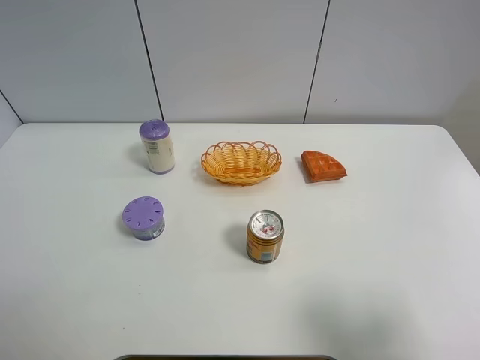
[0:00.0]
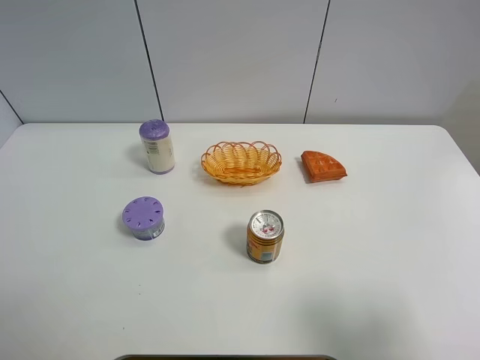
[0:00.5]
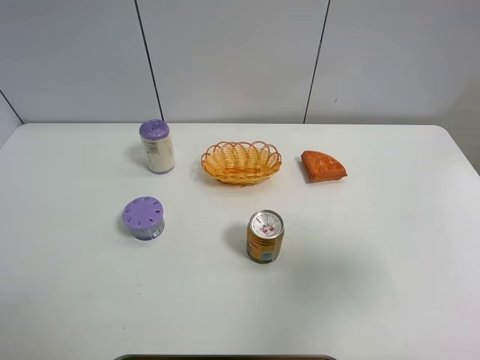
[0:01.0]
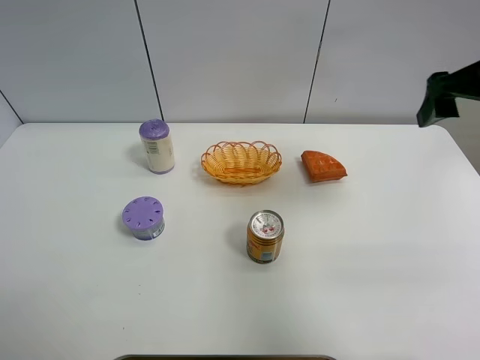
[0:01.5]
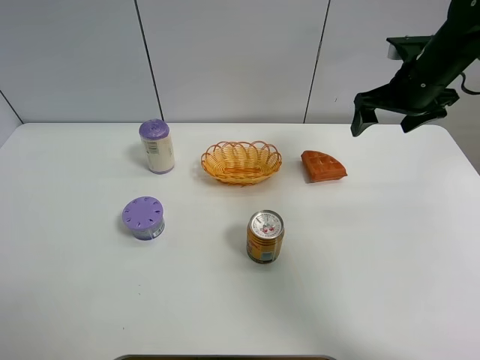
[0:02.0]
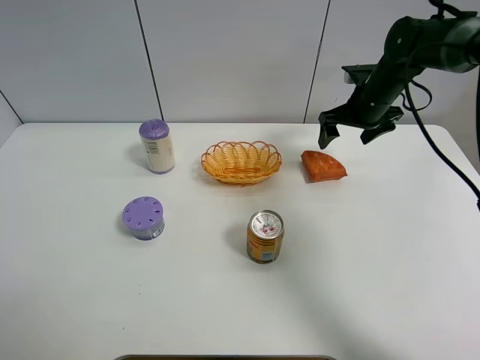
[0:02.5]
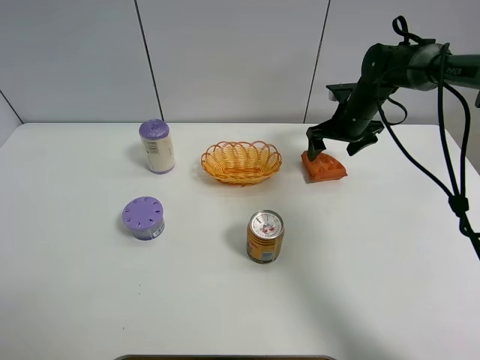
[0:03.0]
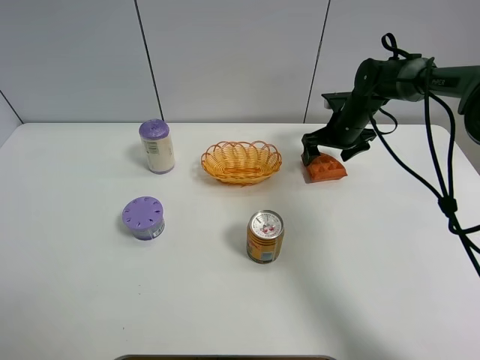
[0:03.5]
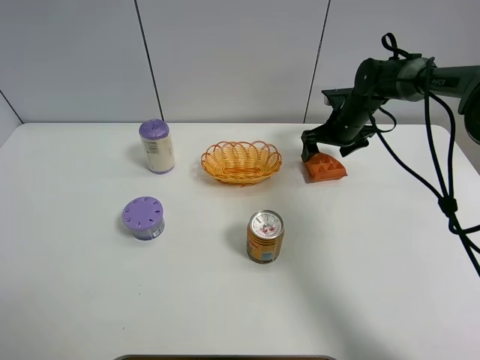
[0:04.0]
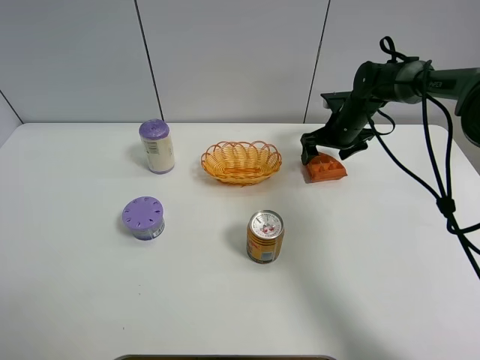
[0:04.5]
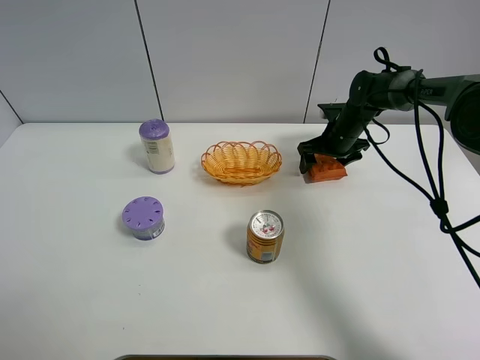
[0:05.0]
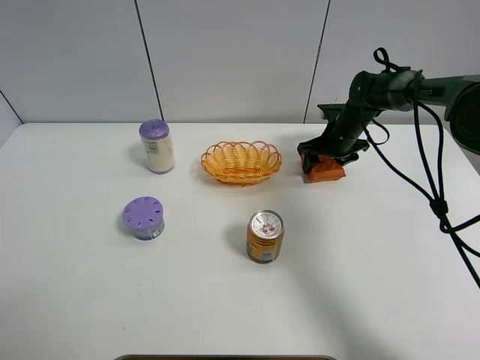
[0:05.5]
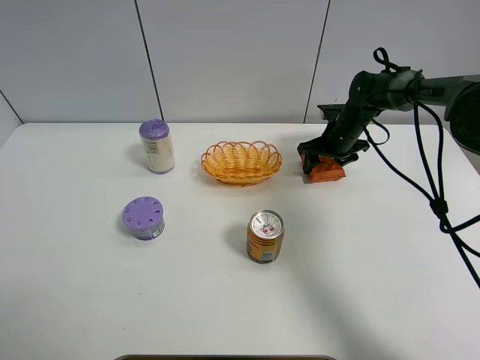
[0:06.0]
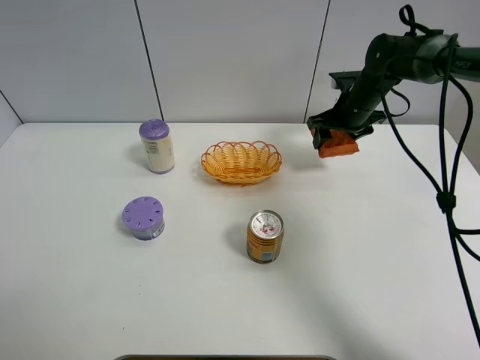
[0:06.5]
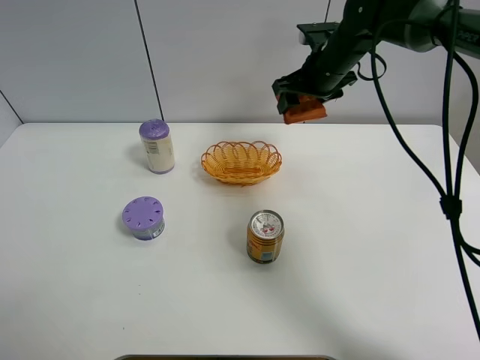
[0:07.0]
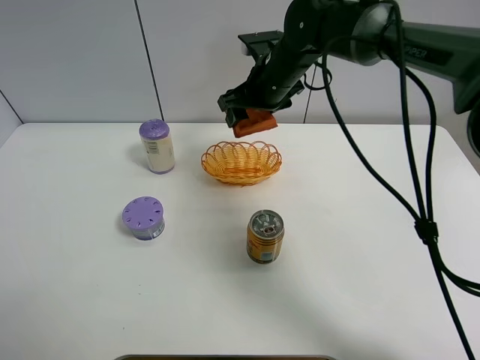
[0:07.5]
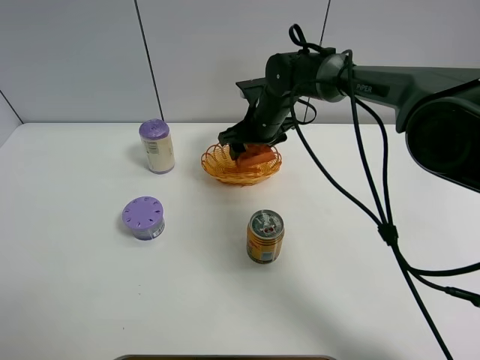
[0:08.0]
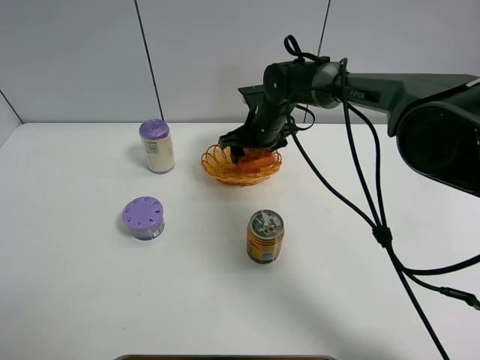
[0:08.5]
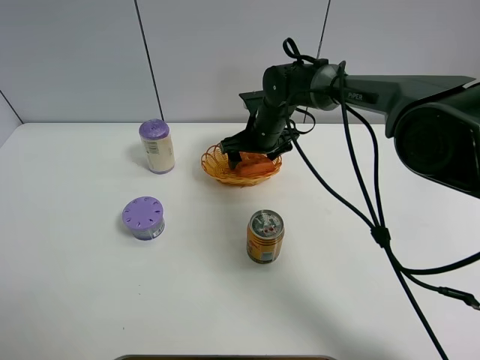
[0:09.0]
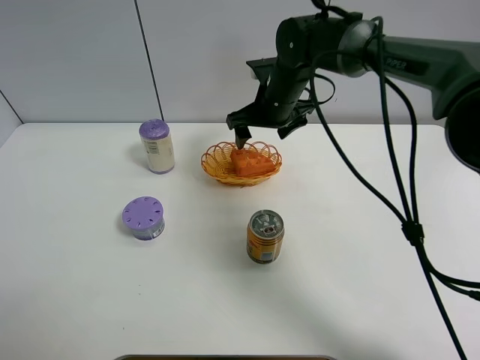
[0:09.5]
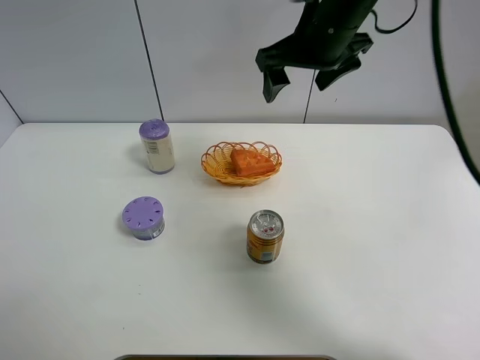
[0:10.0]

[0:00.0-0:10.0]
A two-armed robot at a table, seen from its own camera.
Task of the whole recording: Put the bakery in the basket.
Step, 0:00.0 to 0:05.0: Grasp the bread with right gripper.
Step, 0:05.5 to 0:09.5: Place the bread in the basket with right gripper.
0:00.0 to 0:02.0: The right gripper is displaced forward by about 40 cm.
0:02.0 to 0:04.0: The right gripper shifts about 15 cm downward and forward.
0:04.0 to 0:06.0: The right gripper closes.
0:06.0 to 0:08.0: The right gripper is displaced to the left by roughly 15 cm.
0:08.0 to 0:10.0: The right gripper travels upward and backward by approximately 20 cm, and opens.

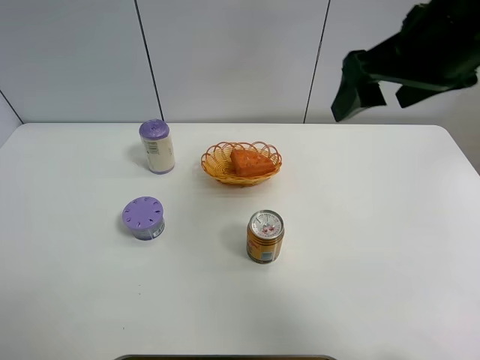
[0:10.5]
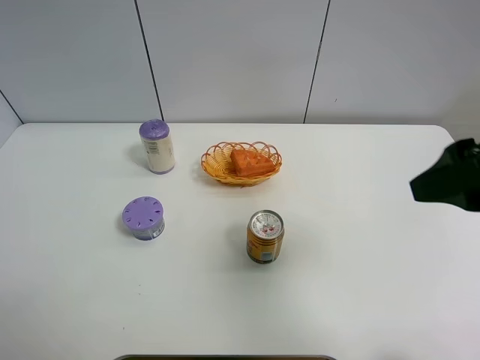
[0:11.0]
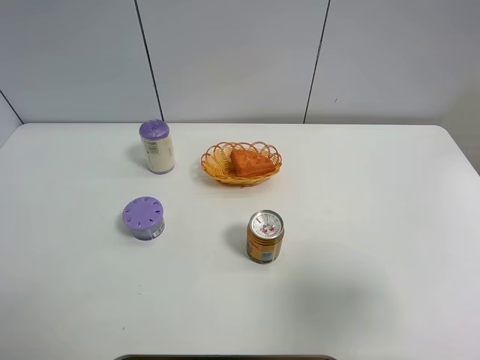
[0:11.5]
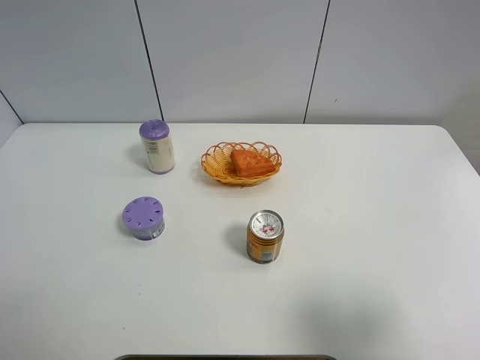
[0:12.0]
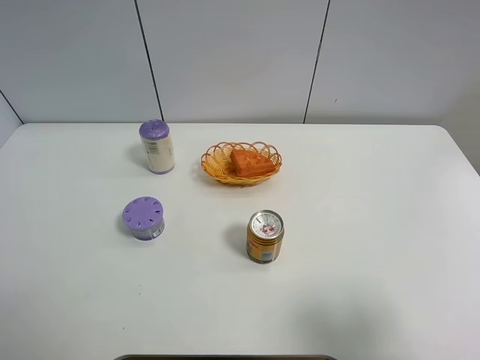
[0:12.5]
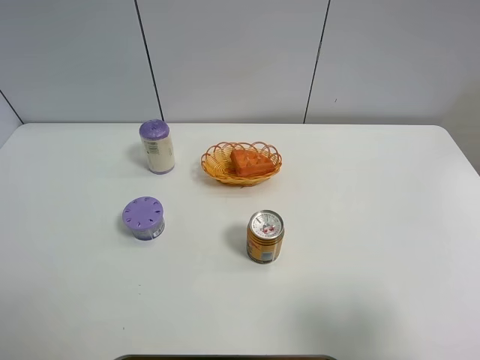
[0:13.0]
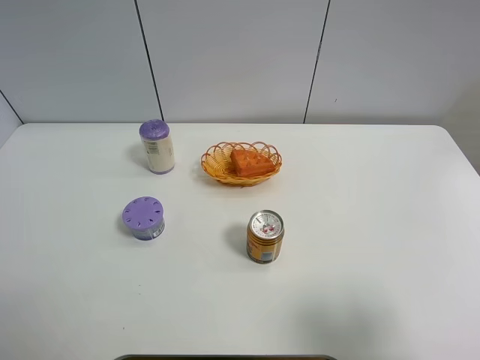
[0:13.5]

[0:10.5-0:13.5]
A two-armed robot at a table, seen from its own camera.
Task of the whole recording: Put the bakery in the basket.
0:10.5 to 0:12.0: The right gripper is displaced backward, to the right and downward by roughly 25 cm.
